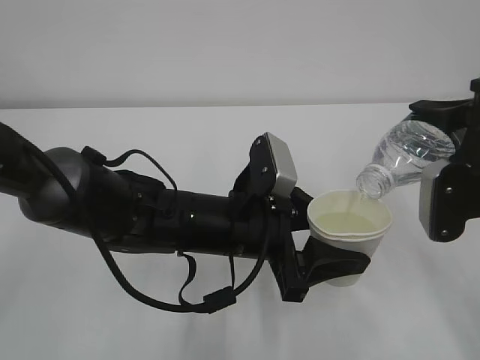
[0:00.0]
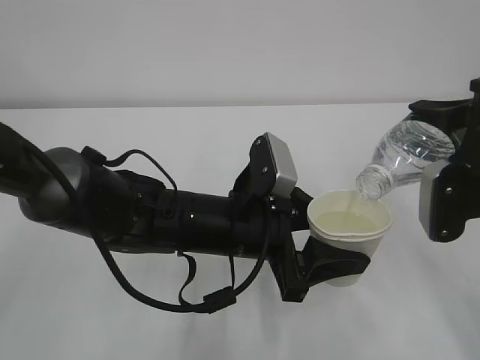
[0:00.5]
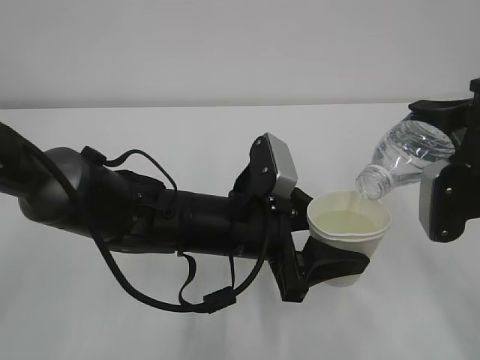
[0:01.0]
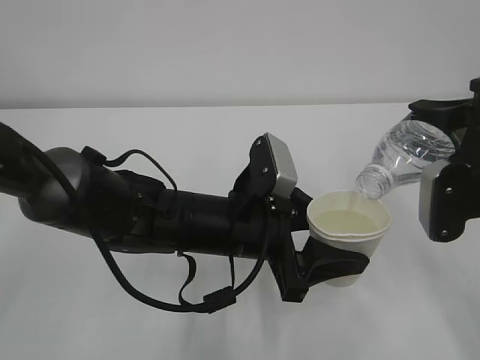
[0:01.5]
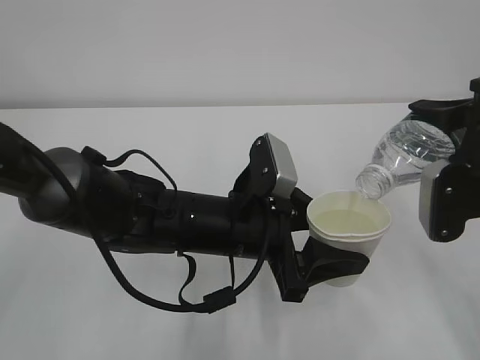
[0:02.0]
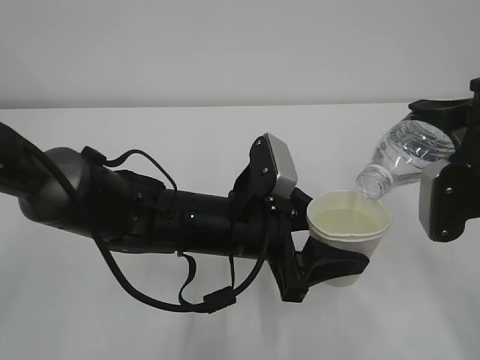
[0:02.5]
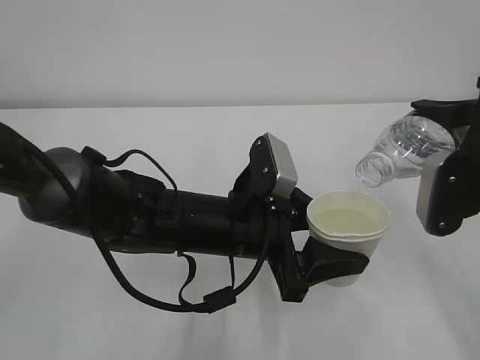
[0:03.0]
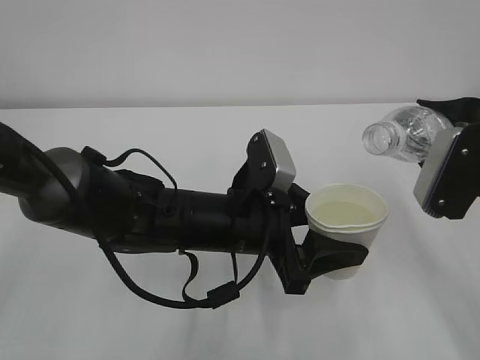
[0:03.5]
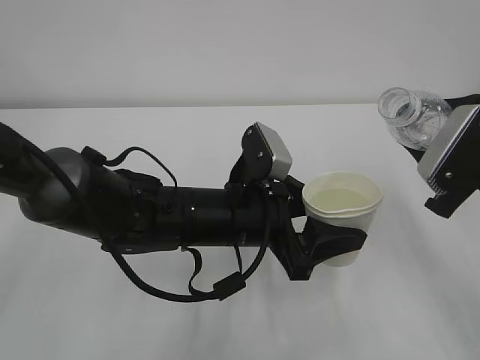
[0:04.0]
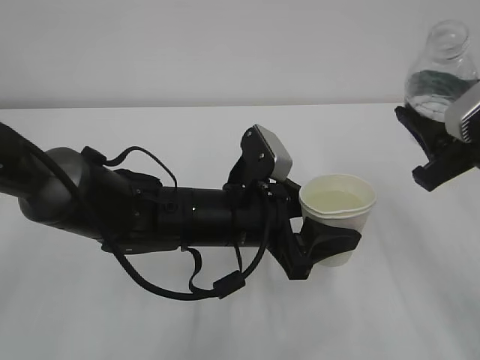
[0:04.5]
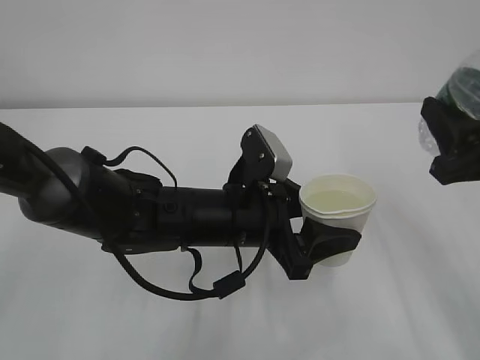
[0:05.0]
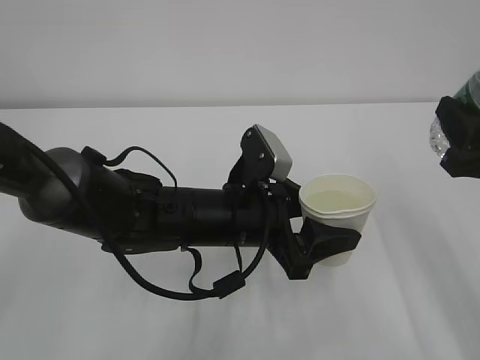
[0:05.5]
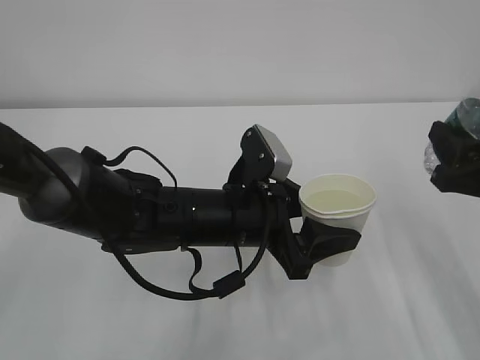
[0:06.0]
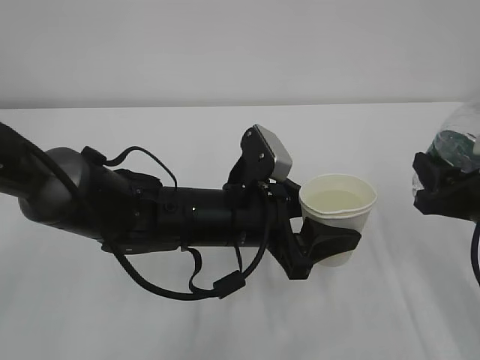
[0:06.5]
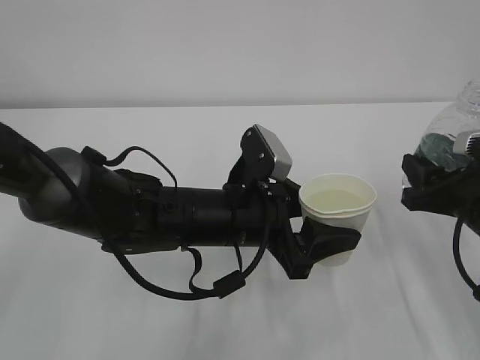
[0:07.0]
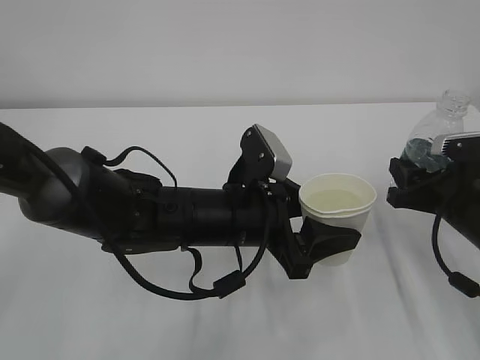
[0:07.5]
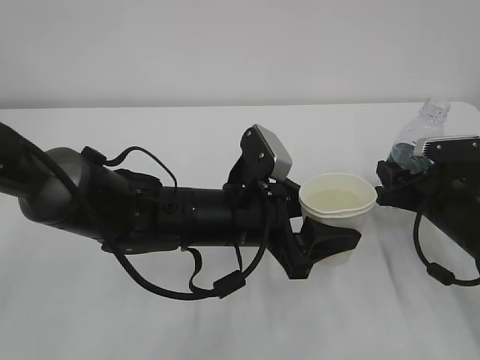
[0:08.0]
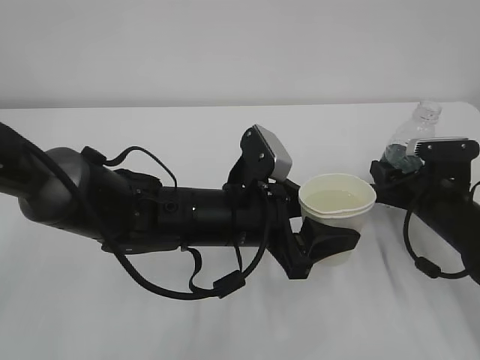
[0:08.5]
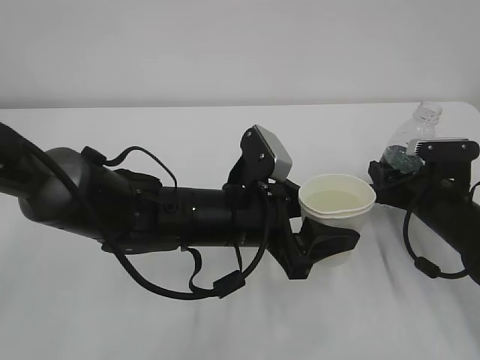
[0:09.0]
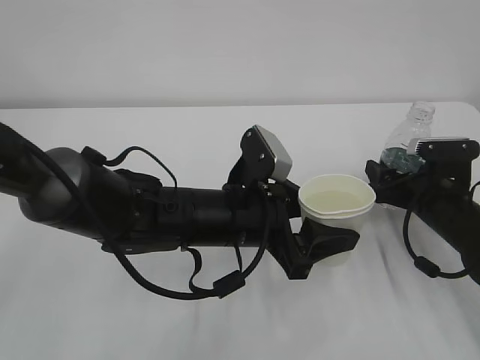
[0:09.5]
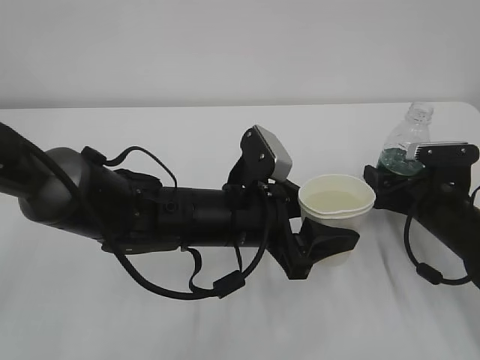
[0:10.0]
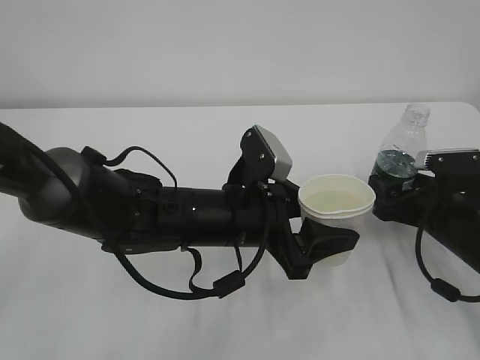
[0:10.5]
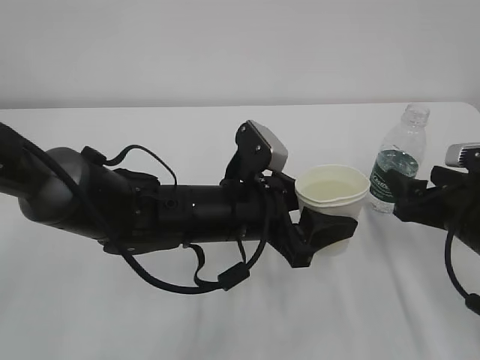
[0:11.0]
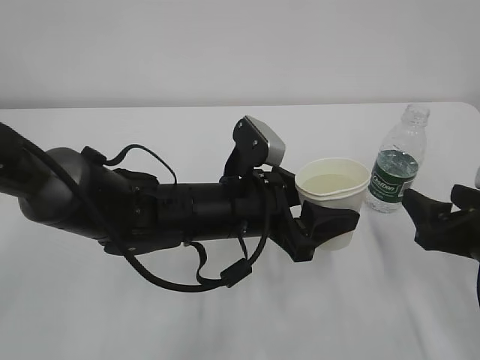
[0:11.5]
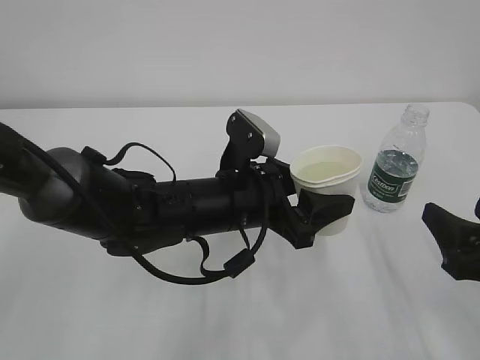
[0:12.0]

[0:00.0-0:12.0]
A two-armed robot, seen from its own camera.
0:00.0 to 0:02.0: The two grippers keep their place.
0:06.0 to 0:08.0: The right gripper moves downward and forward, some 15 cm.
0:08.0 to 0:10.0: The right gripper opens up.
0:10.0 to 0:12.0: The right gripper travels backward and upward by roughly 20 cm.

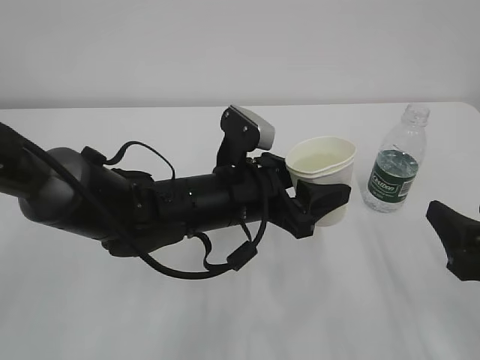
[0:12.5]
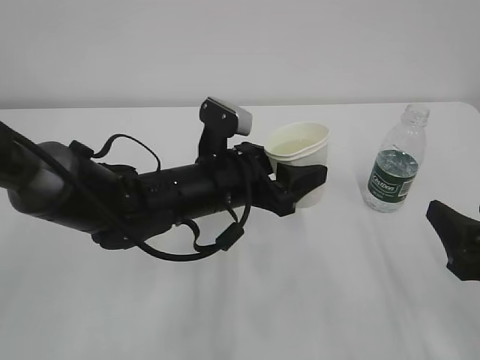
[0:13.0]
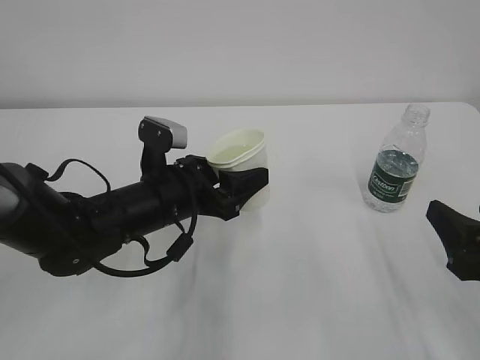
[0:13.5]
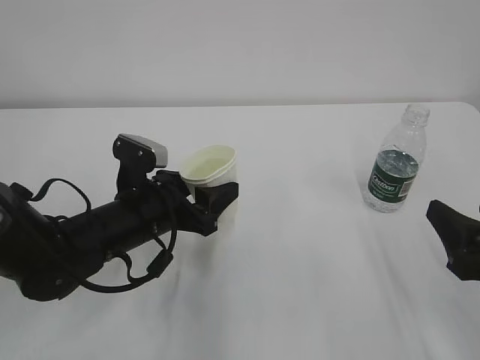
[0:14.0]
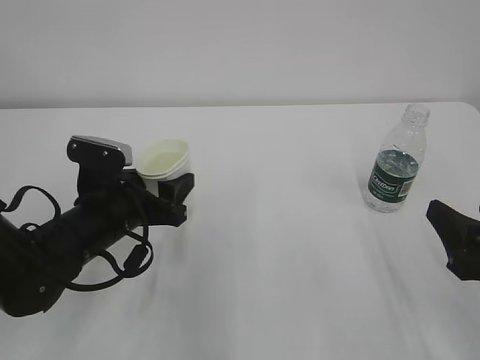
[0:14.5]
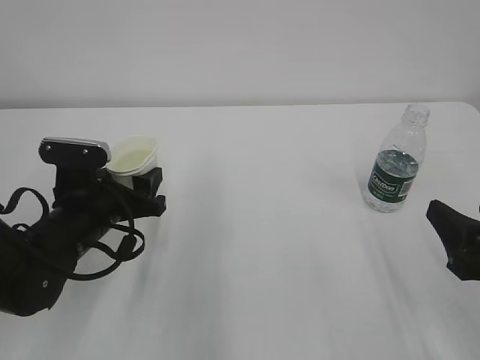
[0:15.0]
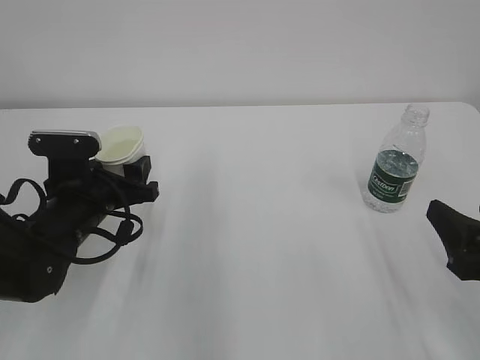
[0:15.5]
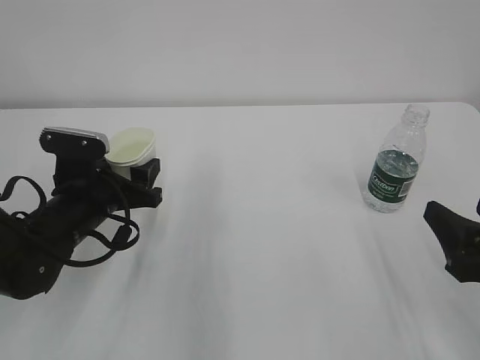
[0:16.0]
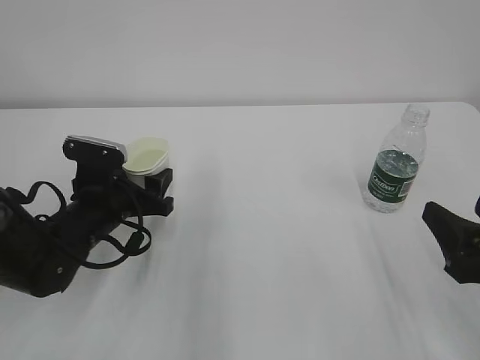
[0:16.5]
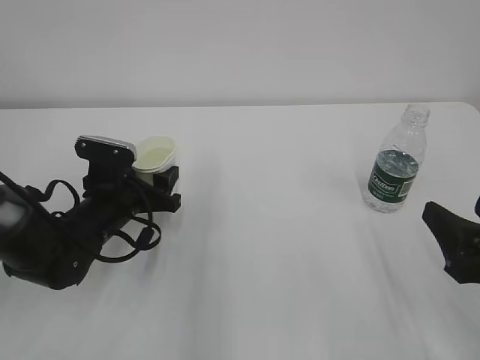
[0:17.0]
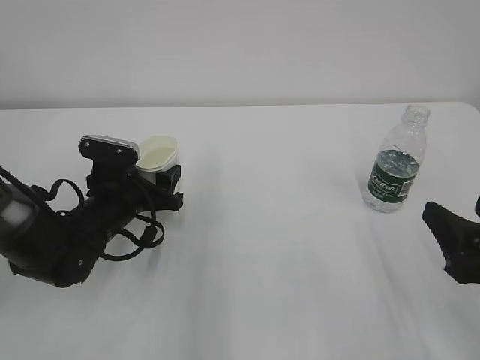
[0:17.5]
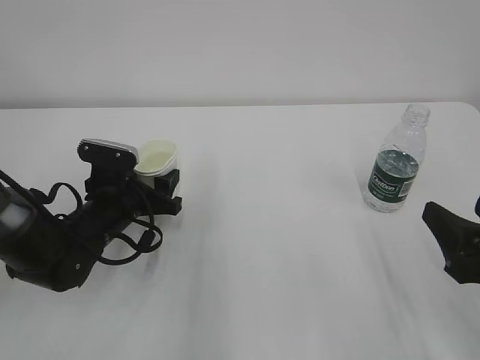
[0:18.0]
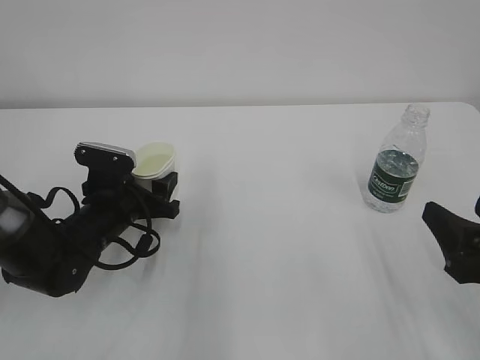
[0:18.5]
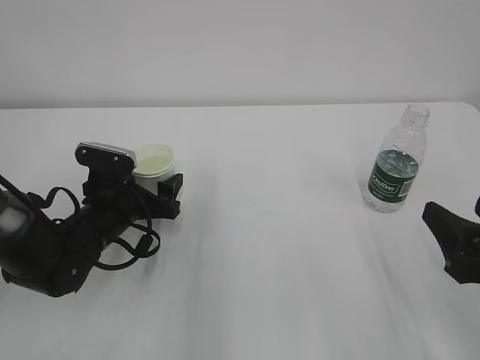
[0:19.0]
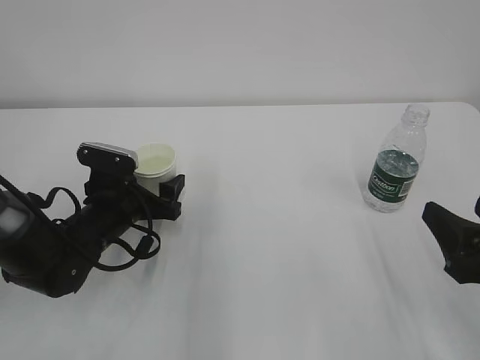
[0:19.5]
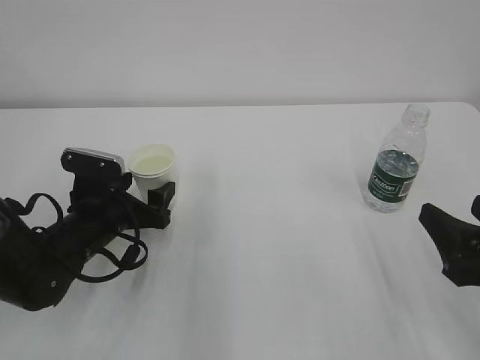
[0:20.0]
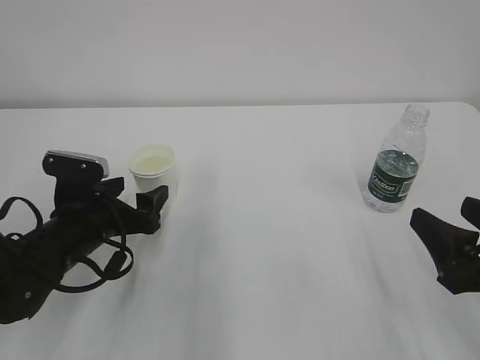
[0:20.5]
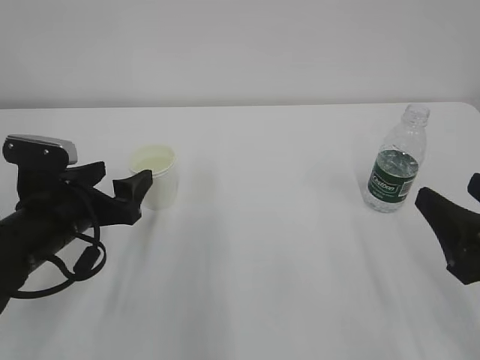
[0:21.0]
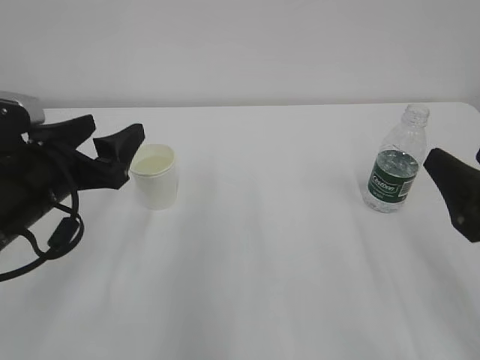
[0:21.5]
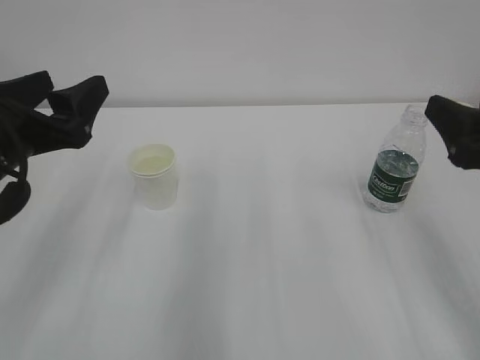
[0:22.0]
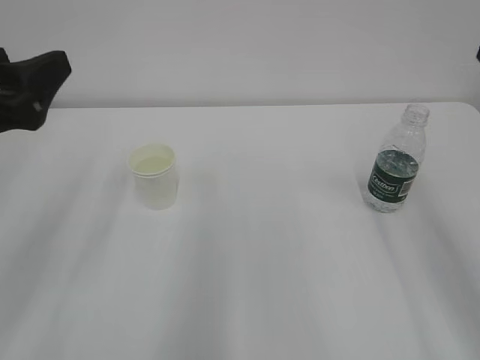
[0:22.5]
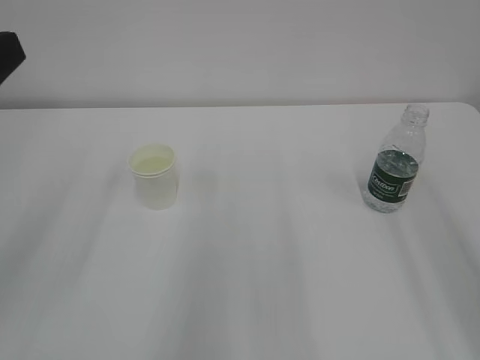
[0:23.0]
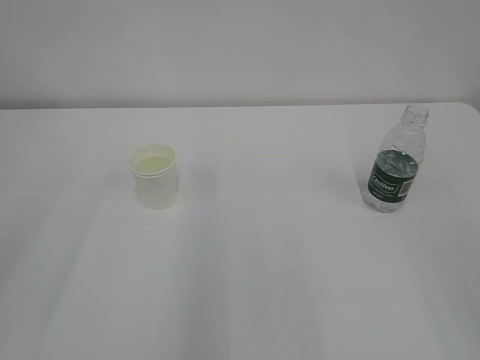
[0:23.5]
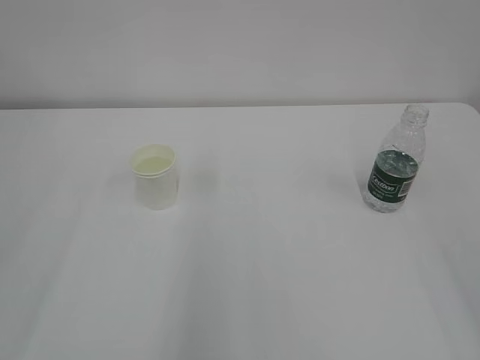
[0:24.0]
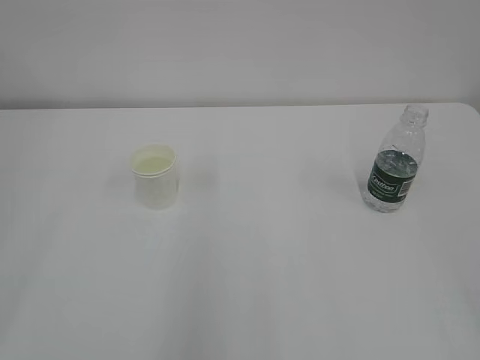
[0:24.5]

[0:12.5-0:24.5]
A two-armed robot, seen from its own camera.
0:12.5 to 0:14.5: The left gripper shifts some 15 cm to the left.
0:14.5 to 0:16.5: The grippers make only small movements.
0:16.5 to 0:18.5: The grippers make only small movements.
0:18.5 to 0:20.5: The left gripper ends up some 5 cm from where it was, and opens its fingers.
0:20.5 to 0:22.5: The left gripper shifts approximately 20 cm upward and backward. The right gripper heads upward, covering roughly 15 cm.
0:22.5 to 0:24.5: The left gripper travels backward and to the left by some 20 cm.

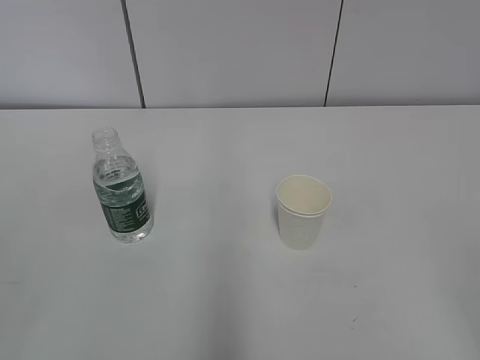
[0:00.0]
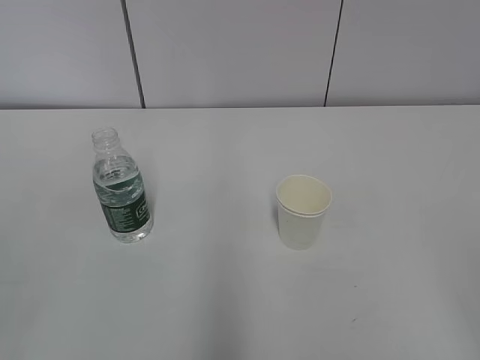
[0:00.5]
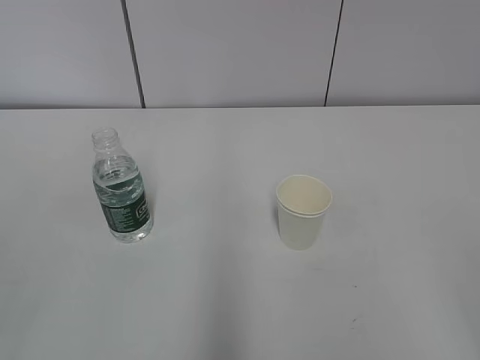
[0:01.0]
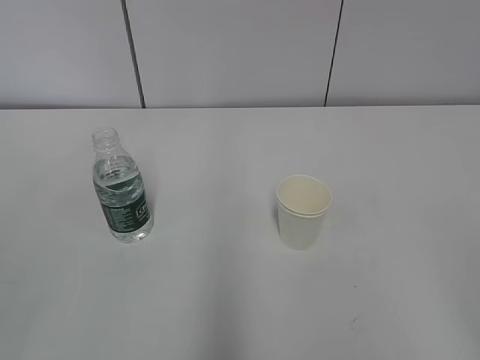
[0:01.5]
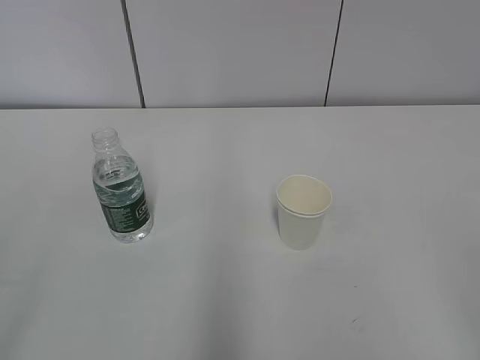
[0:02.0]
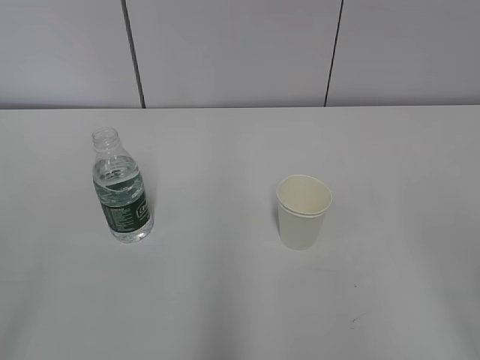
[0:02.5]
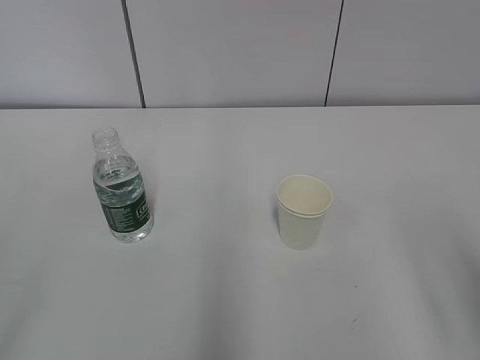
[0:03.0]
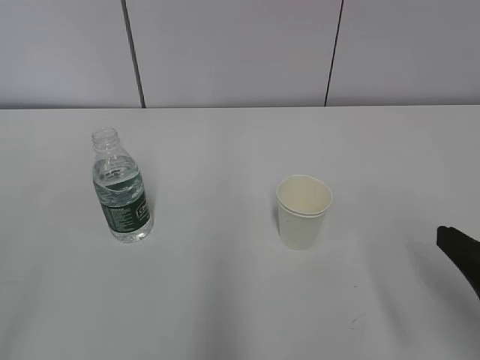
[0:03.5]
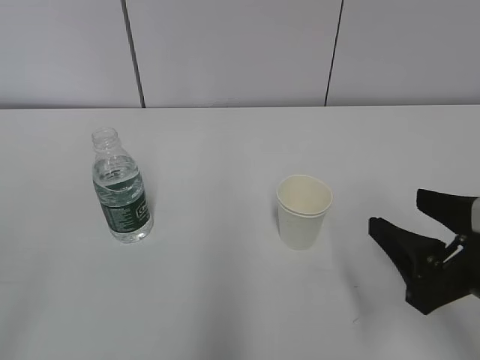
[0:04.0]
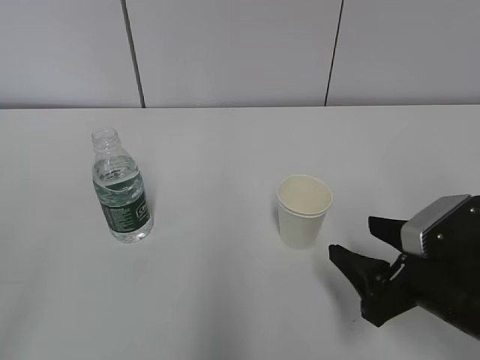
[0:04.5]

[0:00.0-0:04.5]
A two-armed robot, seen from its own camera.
0:02.0 to 0:04.5: The right gripper travels forward, downward and to the left by some 25 cm.
